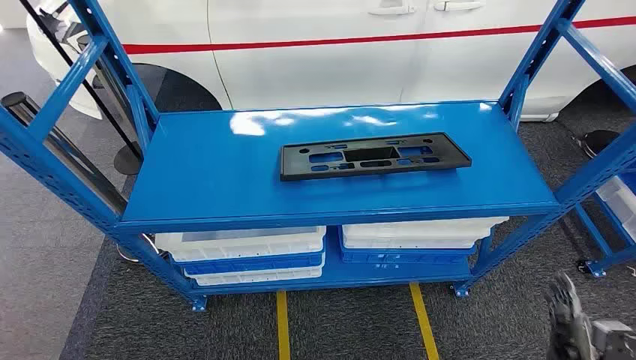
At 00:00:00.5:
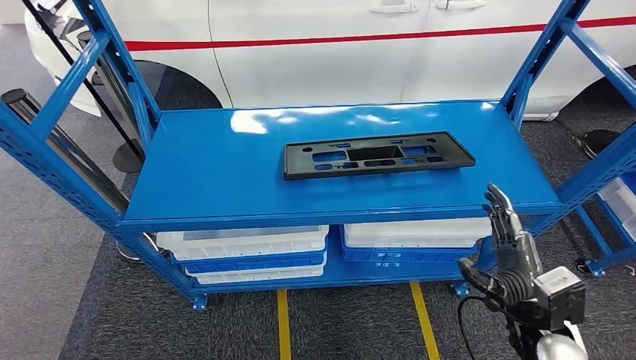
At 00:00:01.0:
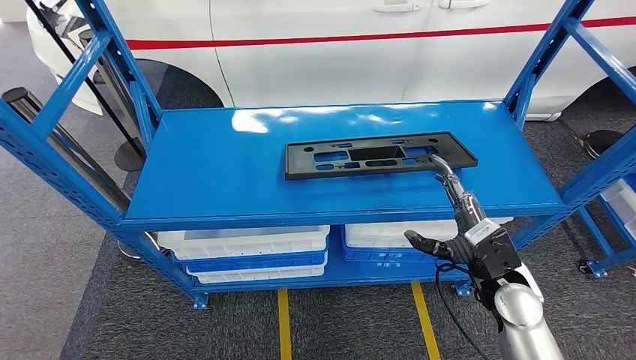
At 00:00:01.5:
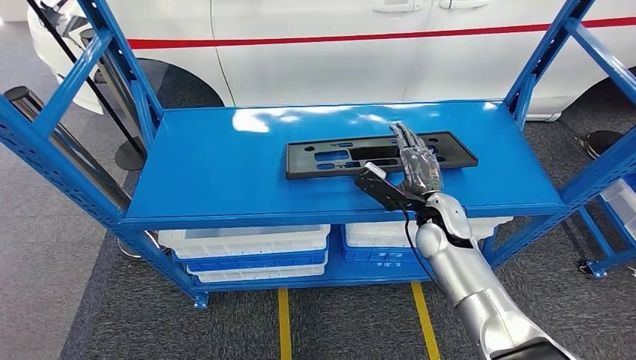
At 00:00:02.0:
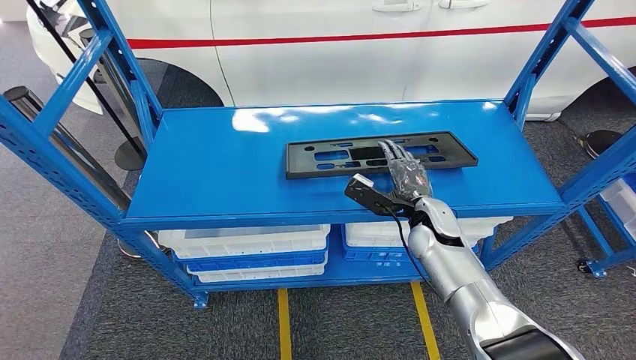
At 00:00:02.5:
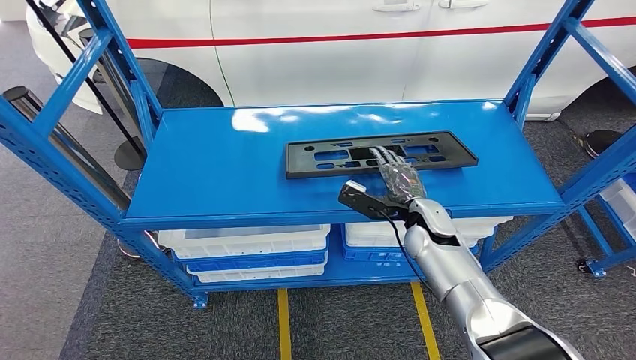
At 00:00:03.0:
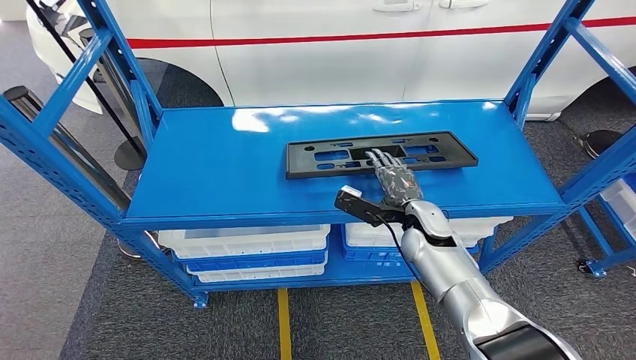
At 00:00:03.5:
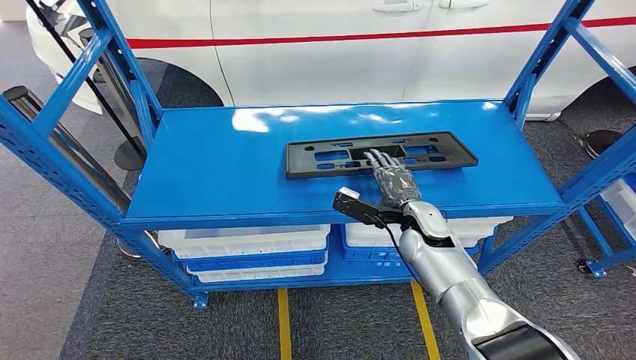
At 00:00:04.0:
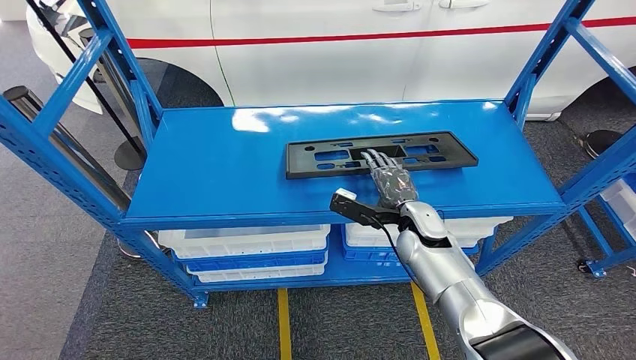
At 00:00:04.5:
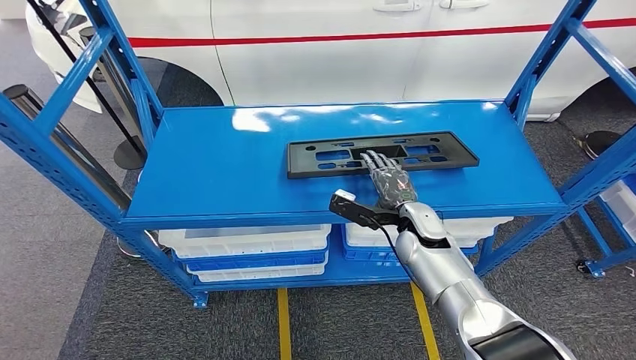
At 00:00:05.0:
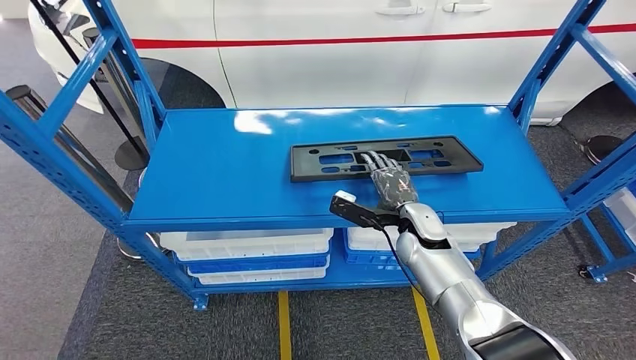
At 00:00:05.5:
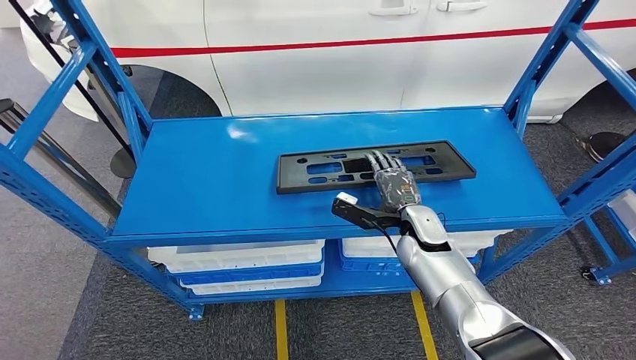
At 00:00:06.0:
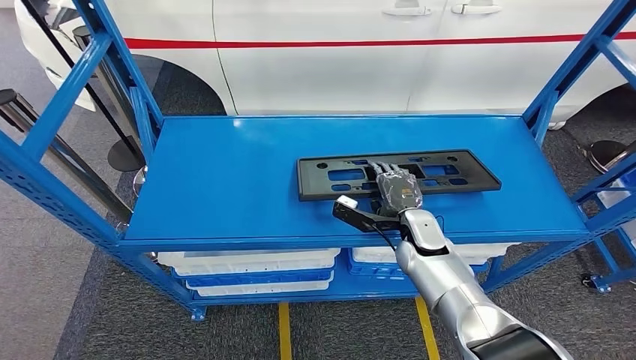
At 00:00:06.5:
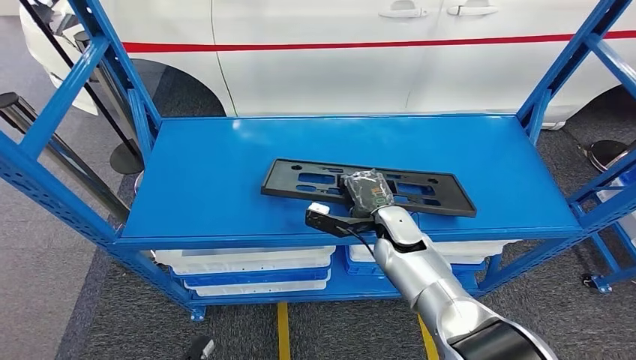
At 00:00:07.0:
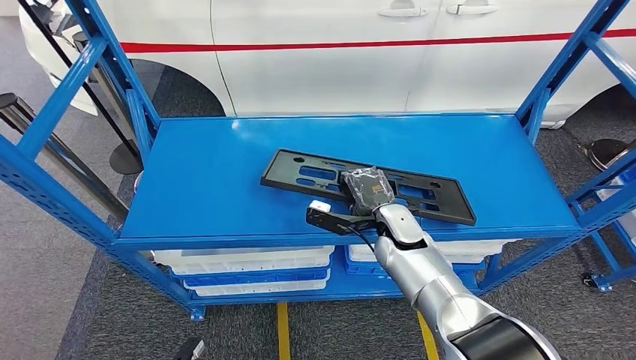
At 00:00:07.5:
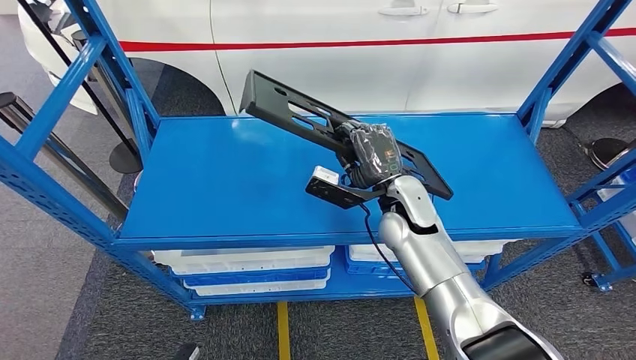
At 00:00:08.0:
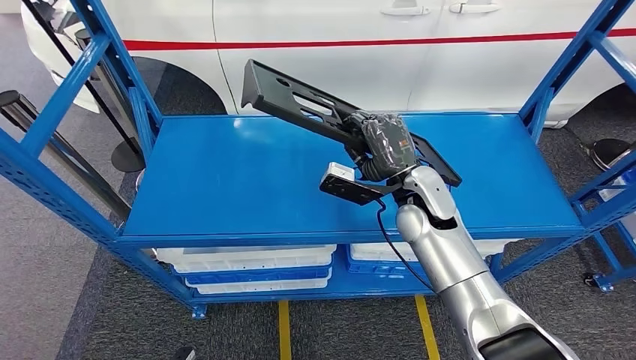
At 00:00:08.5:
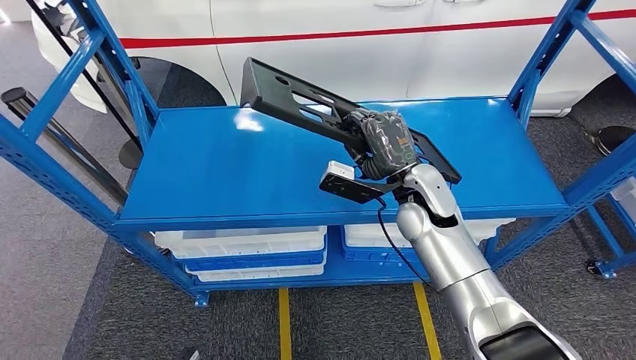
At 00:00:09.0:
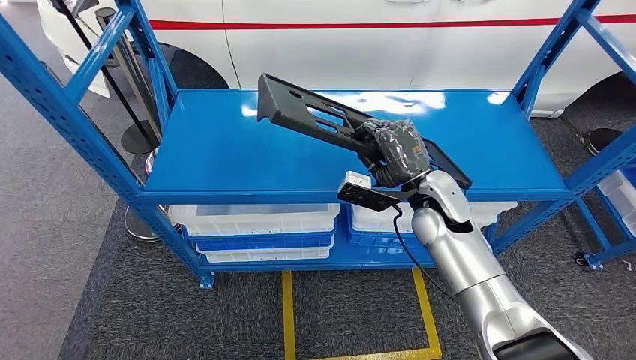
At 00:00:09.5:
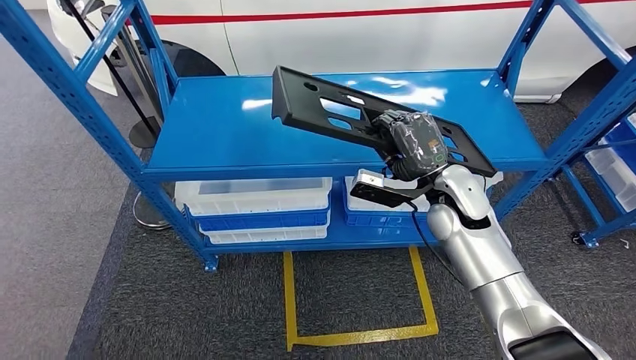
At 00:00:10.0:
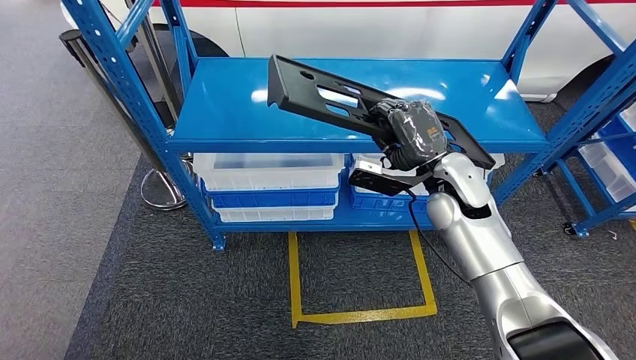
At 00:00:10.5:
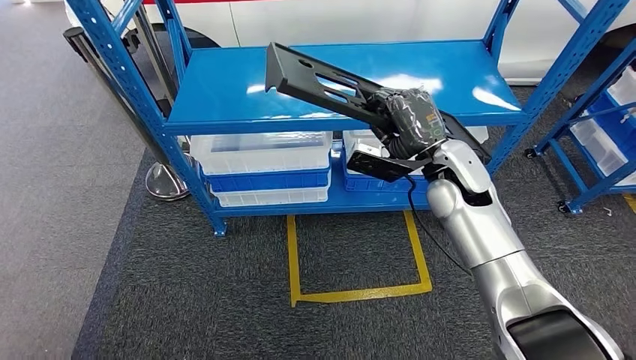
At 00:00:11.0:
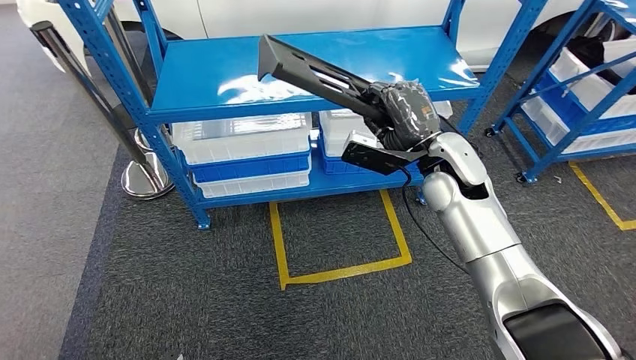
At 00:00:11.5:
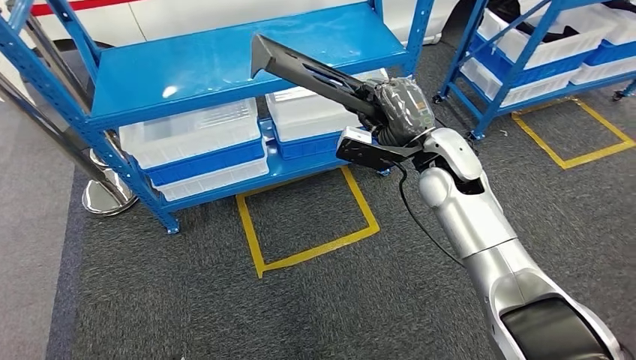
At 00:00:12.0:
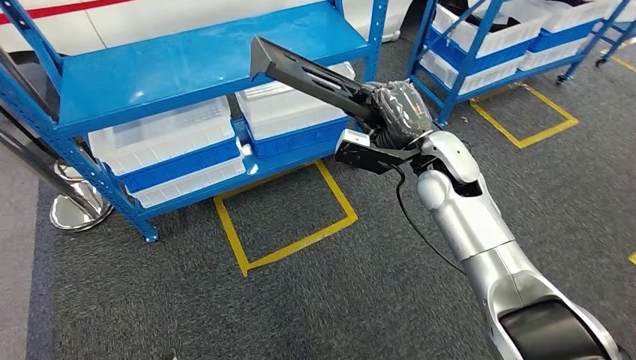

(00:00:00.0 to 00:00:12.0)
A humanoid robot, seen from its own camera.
Step, 00:00:00.0 - 00:00:07.0: Pick up the large material from the shelf.
00:00:02.0 - 00:00:04.0: There are only small adjustments of the hands.

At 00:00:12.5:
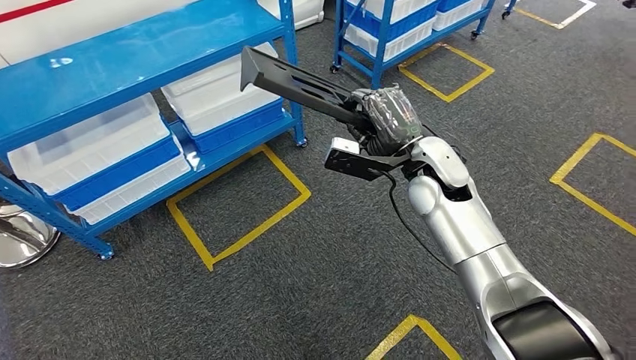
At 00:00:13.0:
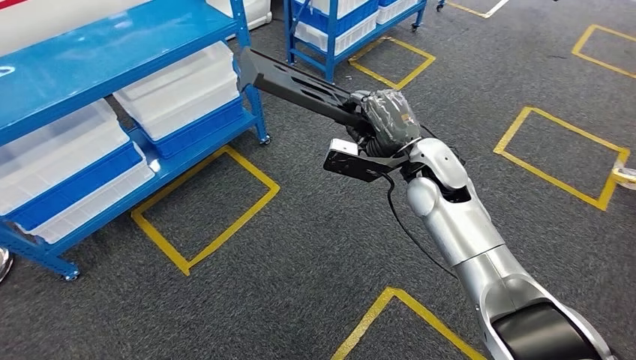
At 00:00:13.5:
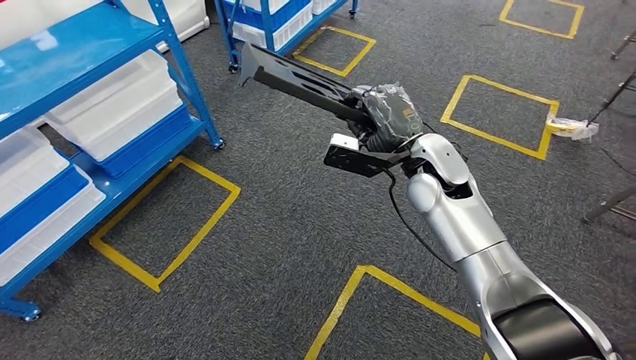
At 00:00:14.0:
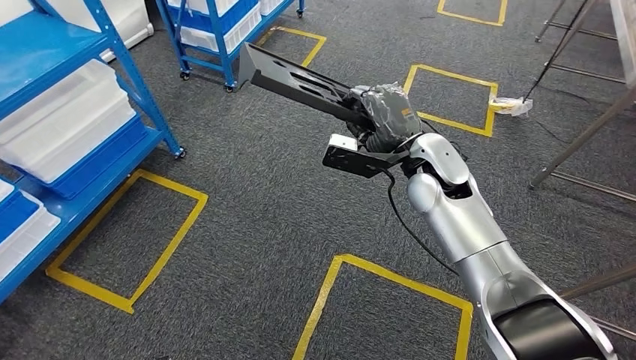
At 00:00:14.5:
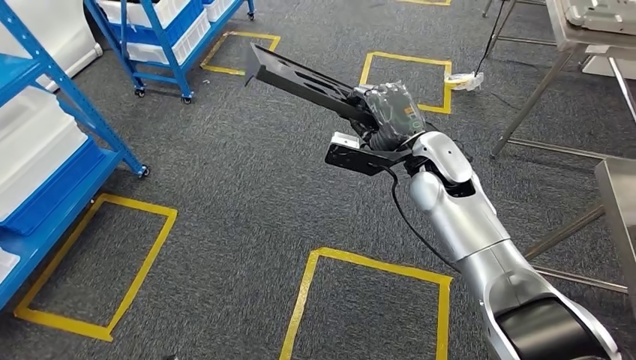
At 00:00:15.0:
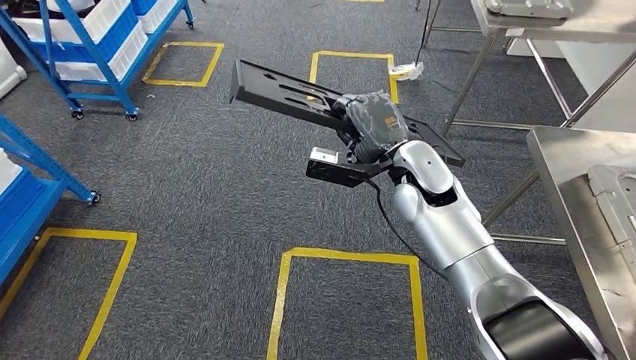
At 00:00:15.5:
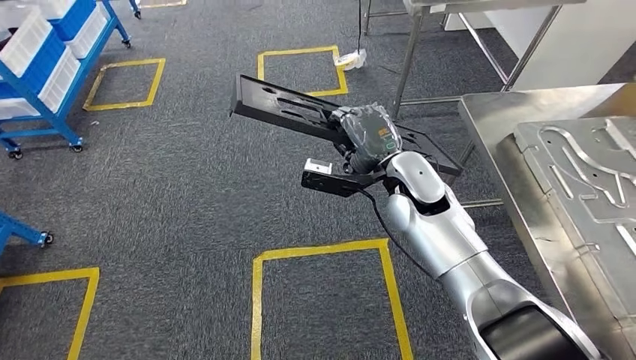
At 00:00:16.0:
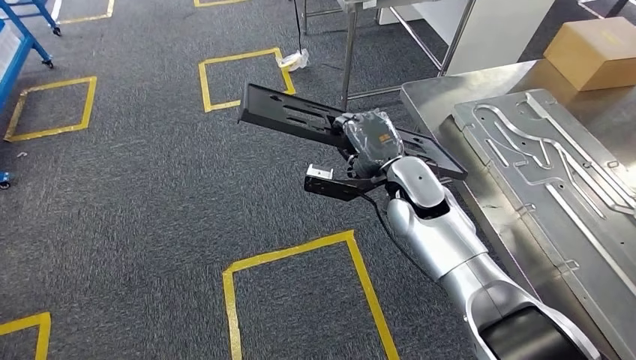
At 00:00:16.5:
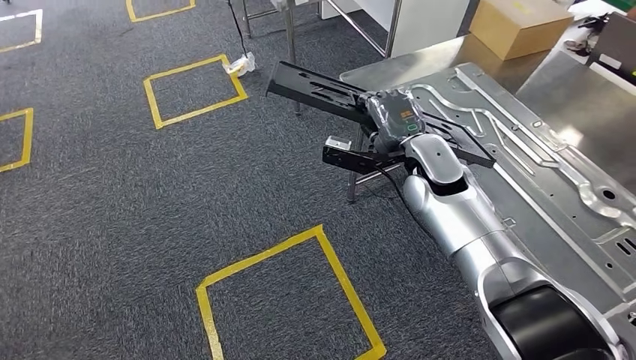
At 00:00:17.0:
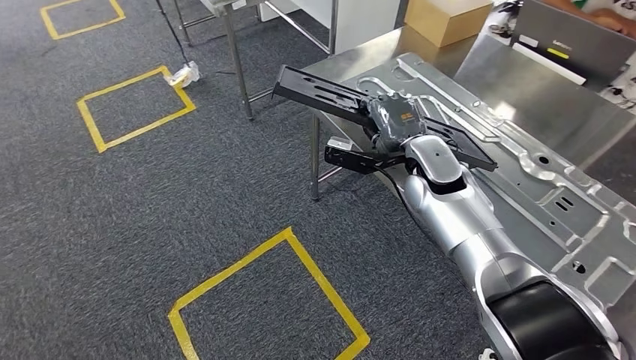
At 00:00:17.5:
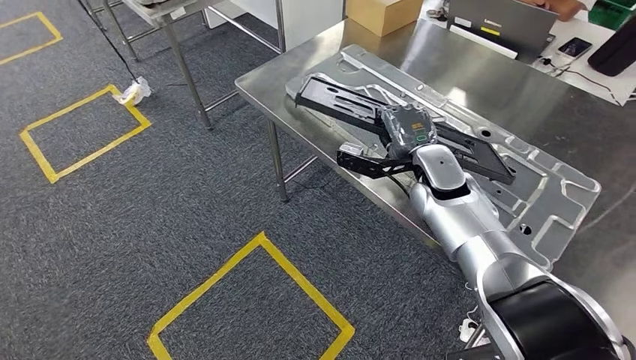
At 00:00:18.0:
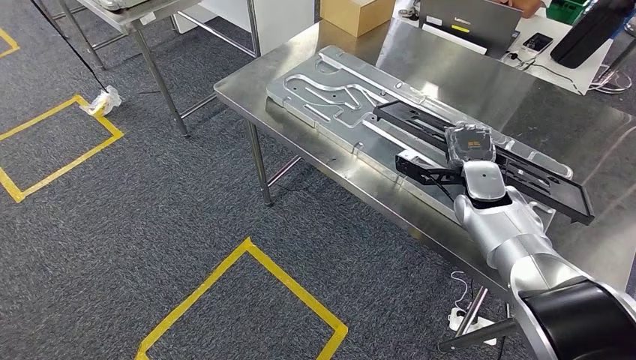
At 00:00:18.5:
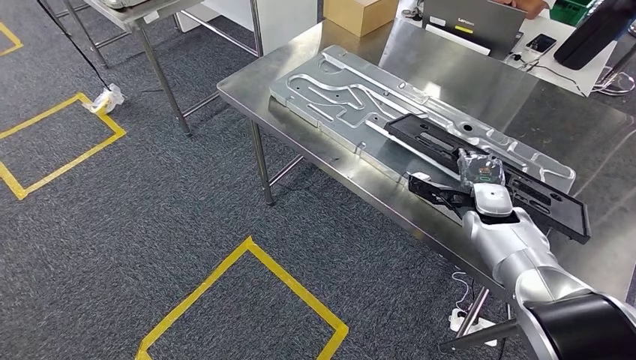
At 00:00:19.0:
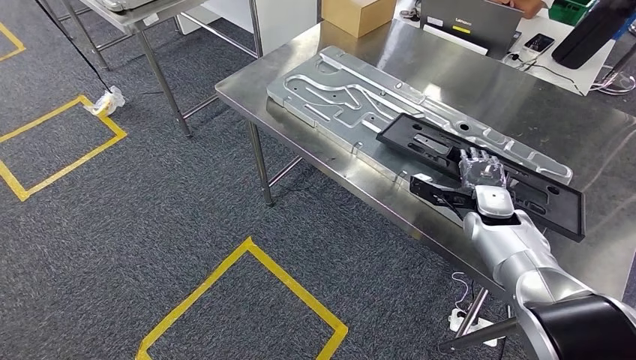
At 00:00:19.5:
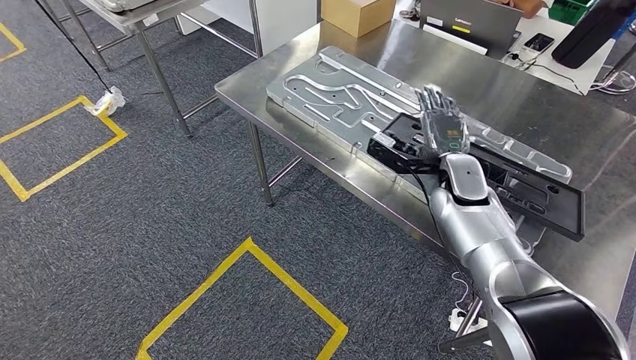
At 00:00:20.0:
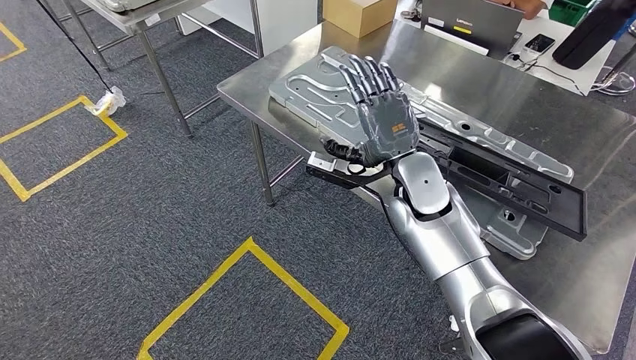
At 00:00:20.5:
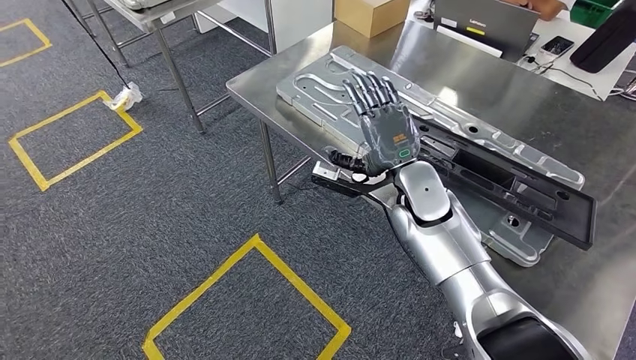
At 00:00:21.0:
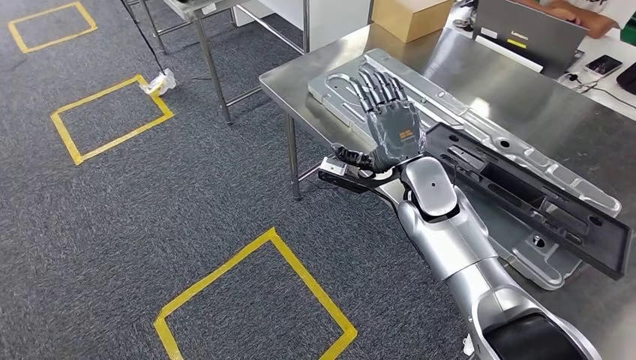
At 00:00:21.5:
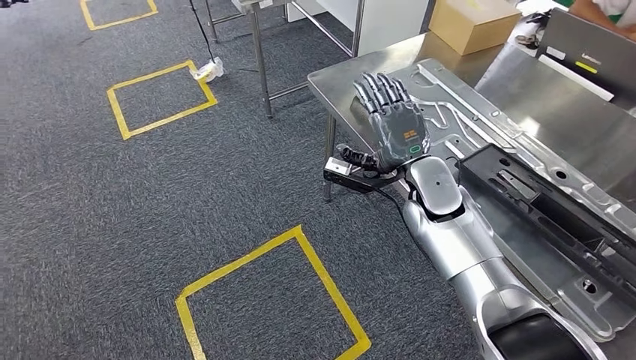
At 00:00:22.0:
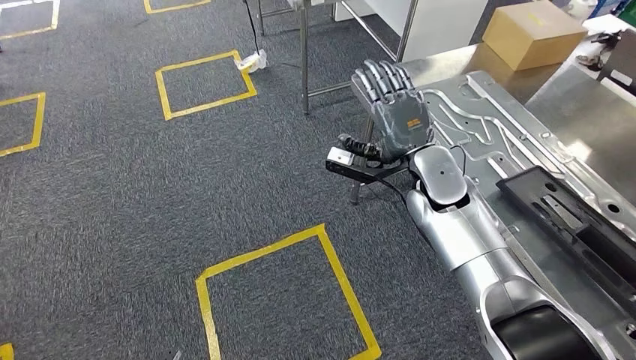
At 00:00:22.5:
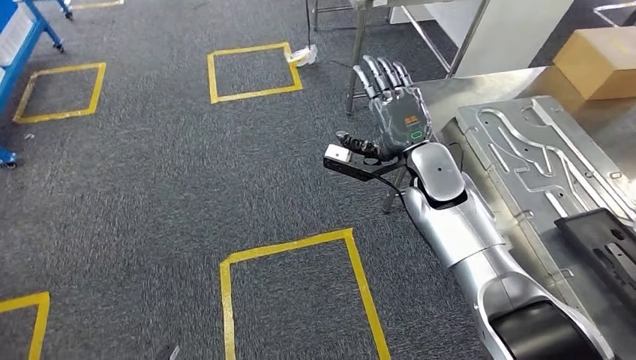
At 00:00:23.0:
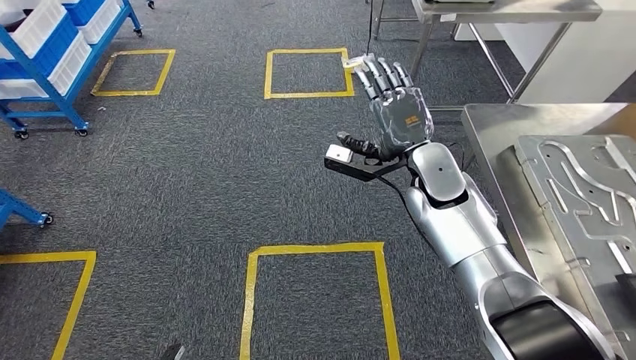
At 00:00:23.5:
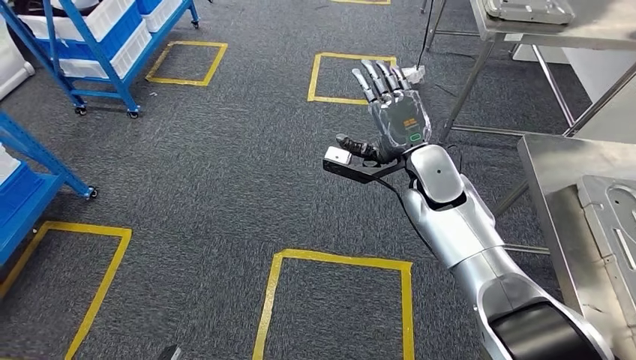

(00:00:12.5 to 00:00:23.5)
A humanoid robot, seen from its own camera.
Step, 00:00:12.5 - 00:00:17.0: Move the large material to the workbench.
Step, 00:00:18.0 - 00:00:21.5: Insert the large material into the corresponding slot on the workbench.
